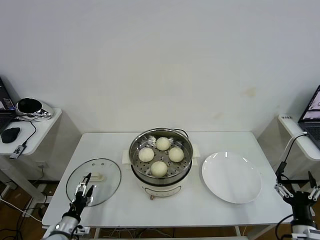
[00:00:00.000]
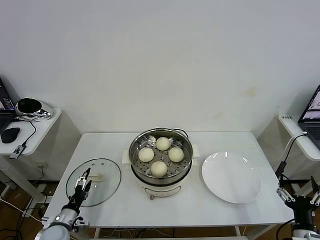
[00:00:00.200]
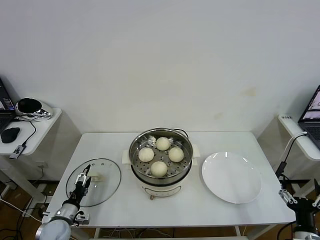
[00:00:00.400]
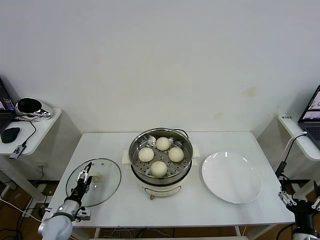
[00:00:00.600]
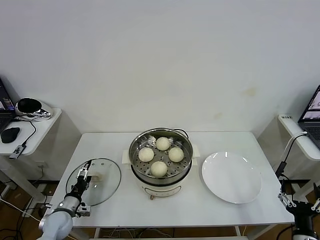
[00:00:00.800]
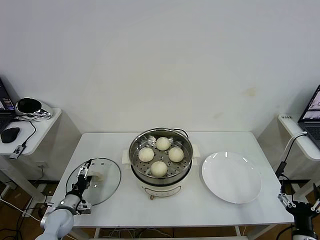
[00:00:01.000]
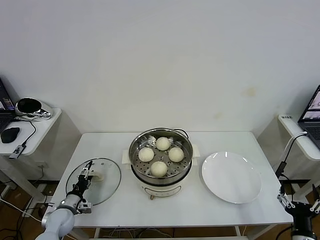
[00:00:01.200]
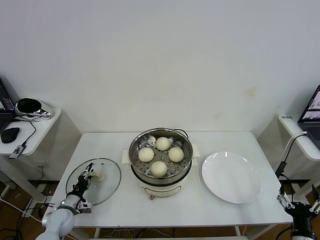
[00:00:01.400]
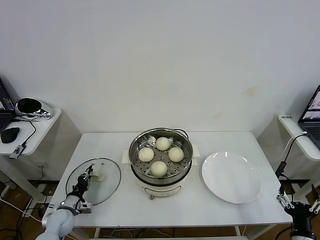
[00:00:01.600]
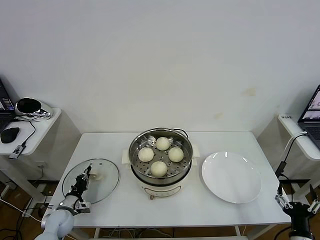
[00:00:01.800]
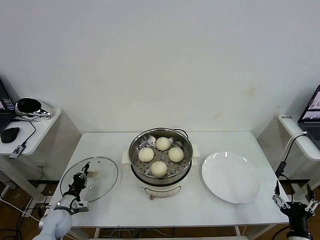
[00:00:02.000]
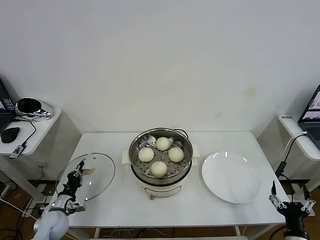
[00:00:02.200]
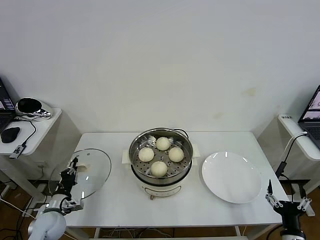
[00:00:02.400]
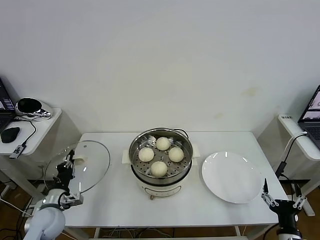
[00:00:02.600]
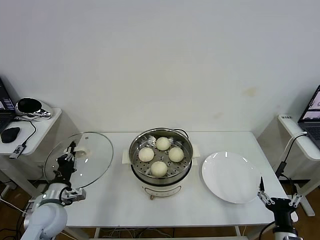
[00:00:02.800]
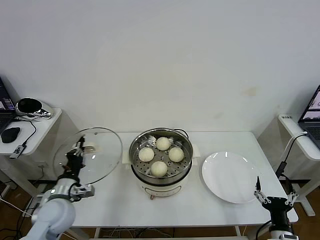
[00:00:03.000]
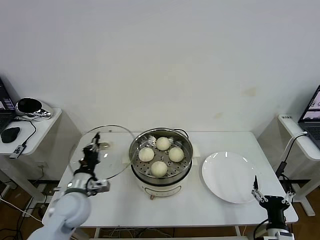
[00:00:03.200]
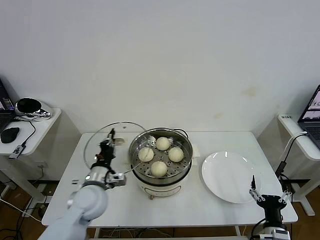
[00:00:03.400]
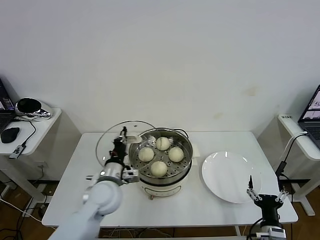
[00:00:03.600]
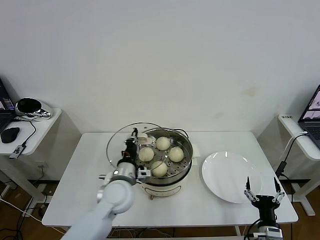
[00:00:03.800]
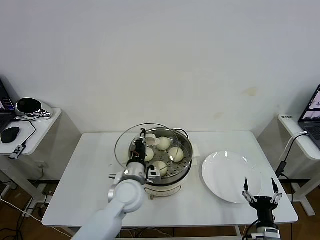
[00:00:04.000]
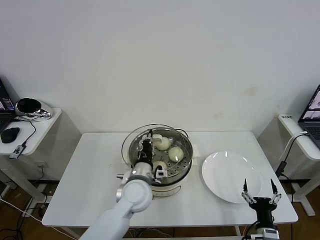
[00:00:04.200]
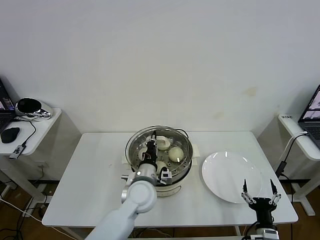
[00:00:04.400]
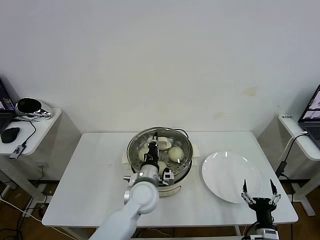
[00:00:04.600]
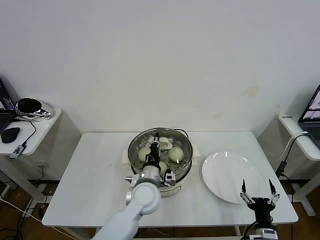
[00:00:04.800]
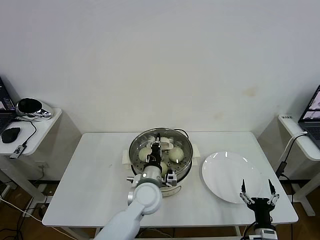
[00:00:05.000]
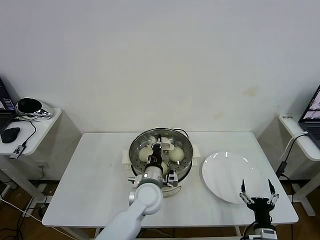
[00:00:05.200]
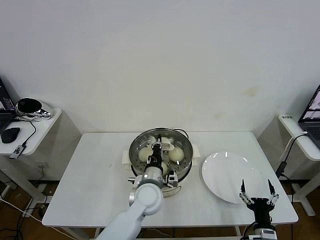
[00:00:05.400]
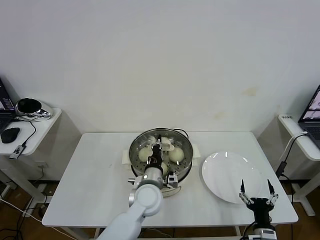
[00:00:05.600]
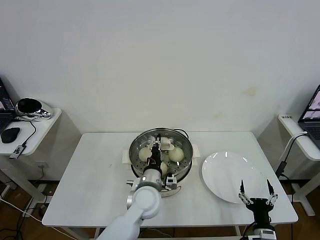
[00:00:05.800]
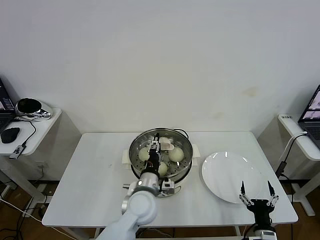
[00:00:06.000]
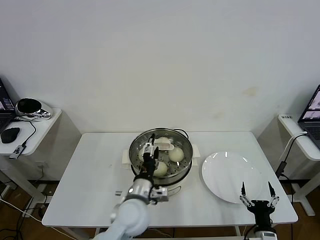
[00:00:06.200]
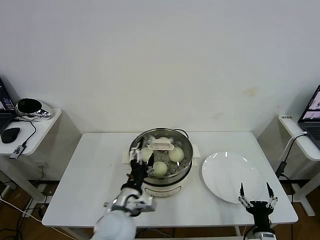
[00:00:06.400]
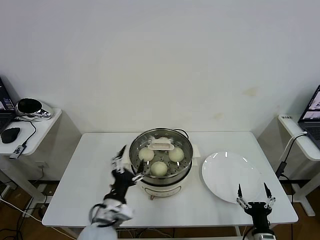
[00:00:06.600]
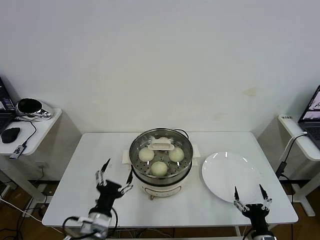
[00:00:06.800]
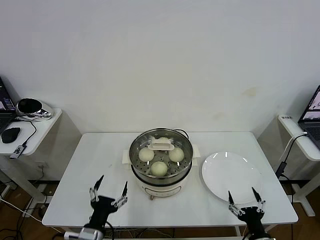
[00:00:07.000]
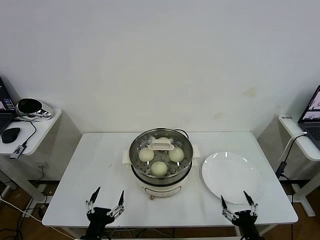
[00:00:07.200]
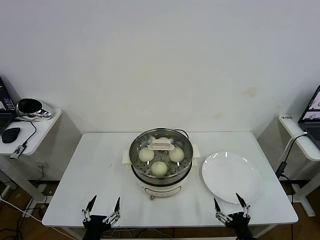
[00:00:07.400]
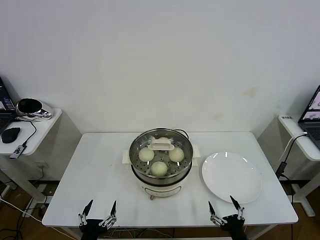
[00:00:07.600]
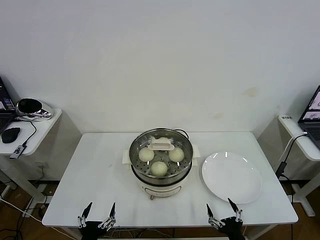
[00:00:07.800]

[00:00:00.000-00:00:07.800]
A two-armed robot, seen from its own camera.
Task of the whole recording: take steamed baozi put them in steamer then cover it.
Step, 00:00:02.000 to 00:00:06.400: Place the pot lid on the steamer with left gripper.
00:00:00.000 to 00:00:01.600: The left gripper moves forward, approximately 10 cm, and closes its fingers.
00:00:01.600 to 00:00:03.200: The right gripper travels to the left by approximately 5 cm. The left gripper is displaced upward and to the right by roughly 20 cm, and closes its fingers.
00:00:03.200 to 00:00:04.600: The left gripper travels to the right by approximately 20 cm.
00:00:04.600 to 00:00:06.200: The left gripper ends up approximately 5 cm from where it was, and opens its fingers.
00:00:06.200 to 00:00:07.800: The left gripper shifts about 25 cm backward and to the left, while the right gripper changes place by about 5 cm.
